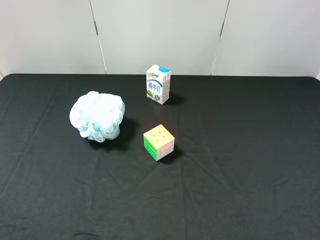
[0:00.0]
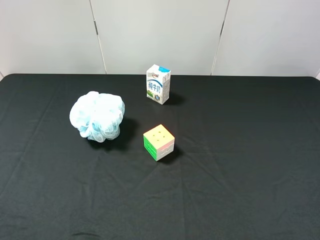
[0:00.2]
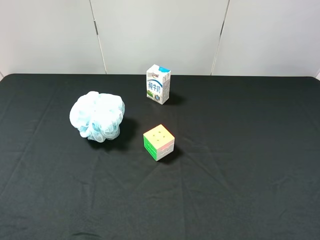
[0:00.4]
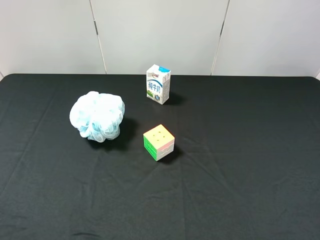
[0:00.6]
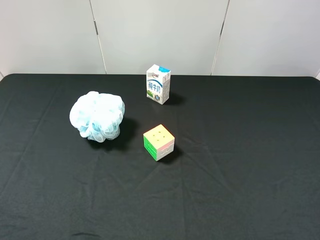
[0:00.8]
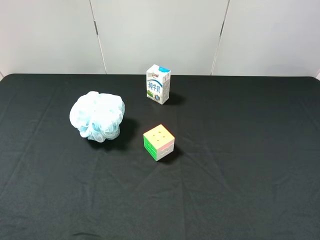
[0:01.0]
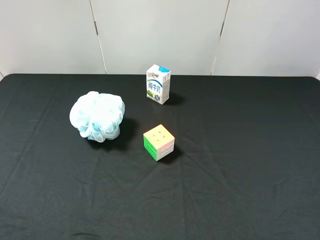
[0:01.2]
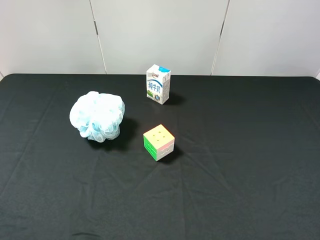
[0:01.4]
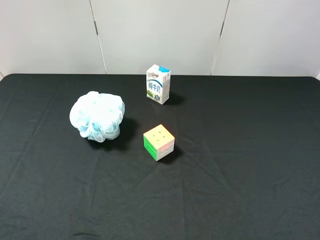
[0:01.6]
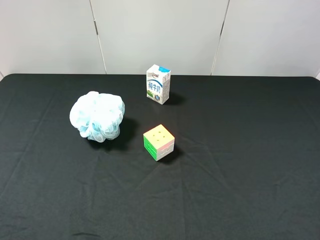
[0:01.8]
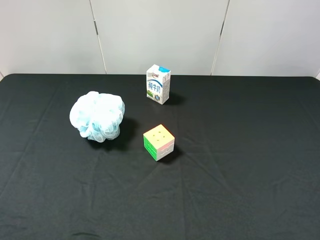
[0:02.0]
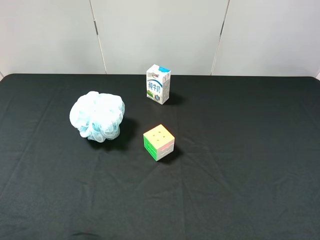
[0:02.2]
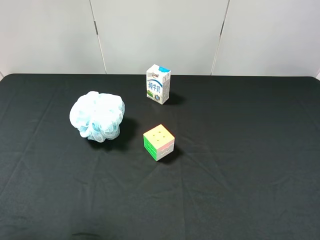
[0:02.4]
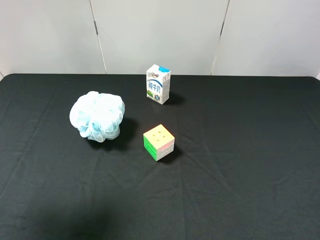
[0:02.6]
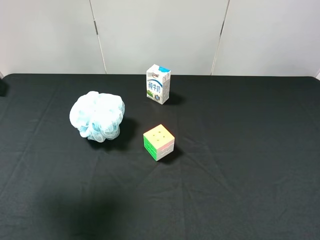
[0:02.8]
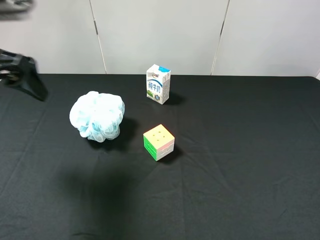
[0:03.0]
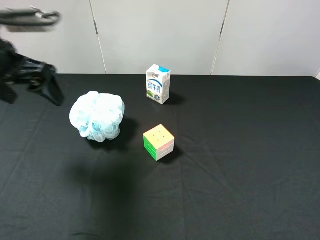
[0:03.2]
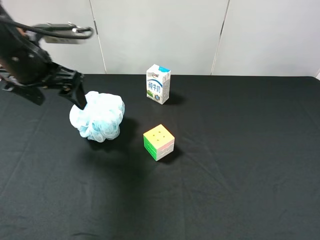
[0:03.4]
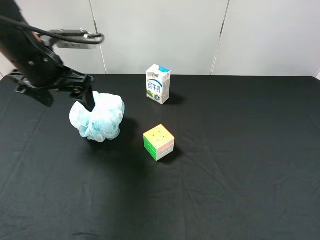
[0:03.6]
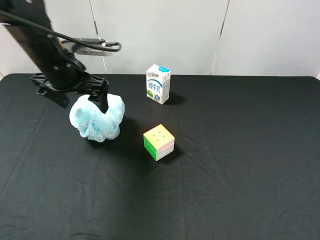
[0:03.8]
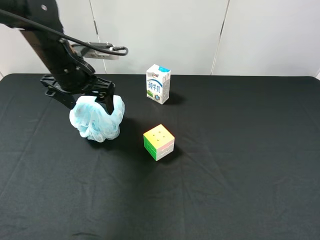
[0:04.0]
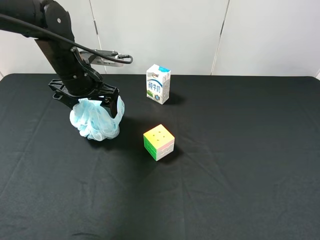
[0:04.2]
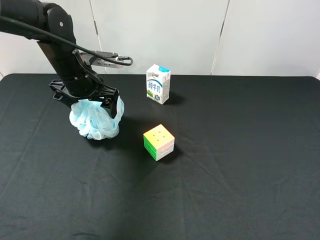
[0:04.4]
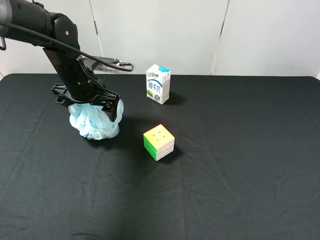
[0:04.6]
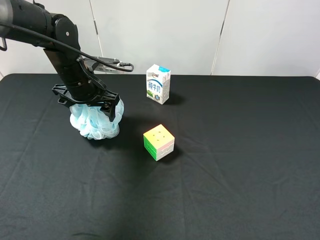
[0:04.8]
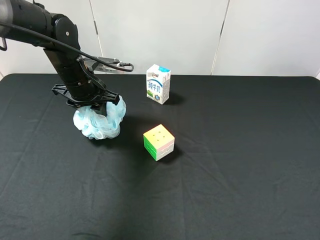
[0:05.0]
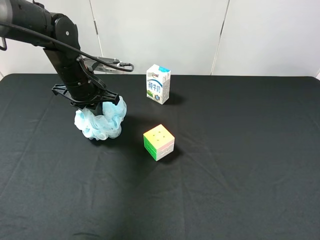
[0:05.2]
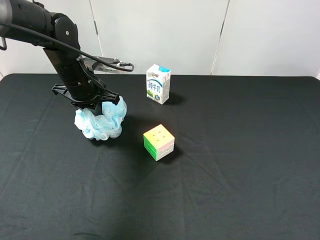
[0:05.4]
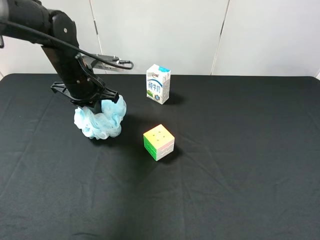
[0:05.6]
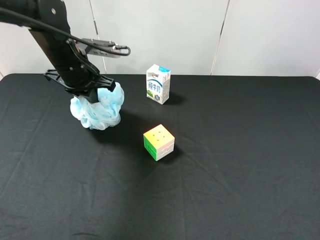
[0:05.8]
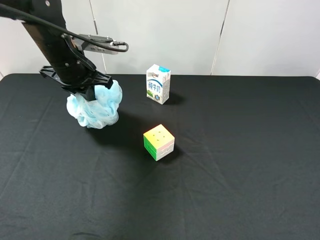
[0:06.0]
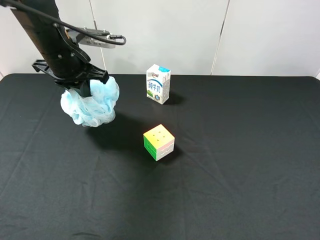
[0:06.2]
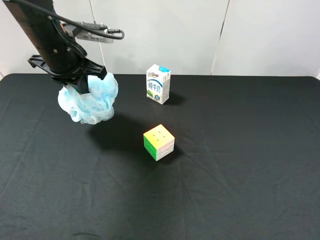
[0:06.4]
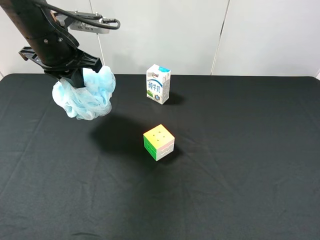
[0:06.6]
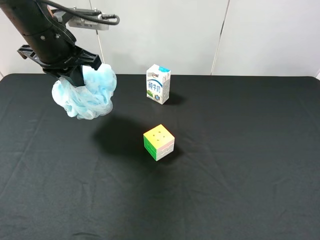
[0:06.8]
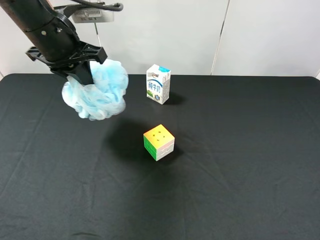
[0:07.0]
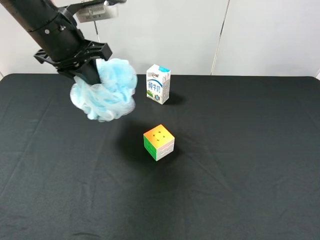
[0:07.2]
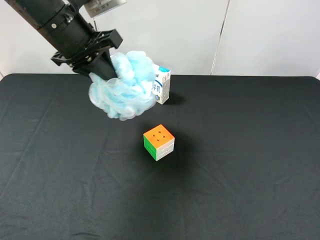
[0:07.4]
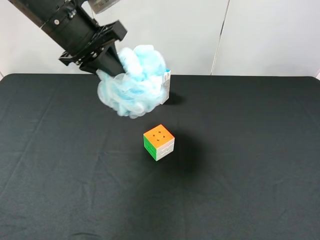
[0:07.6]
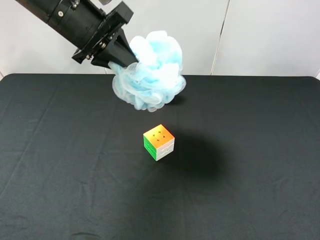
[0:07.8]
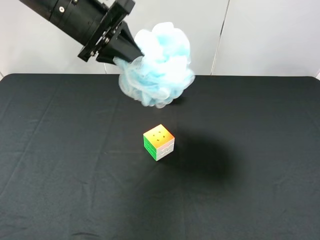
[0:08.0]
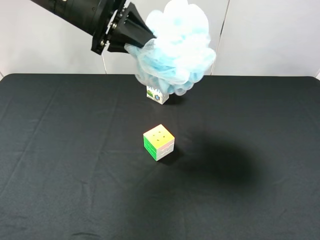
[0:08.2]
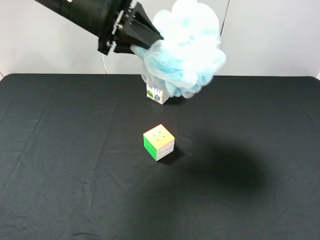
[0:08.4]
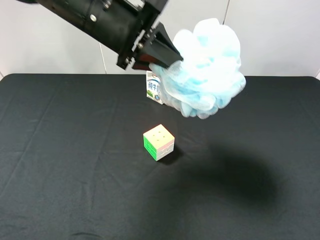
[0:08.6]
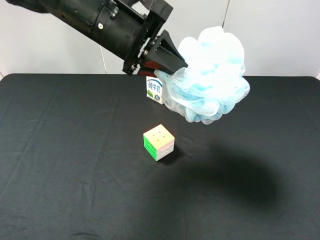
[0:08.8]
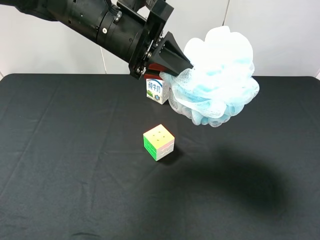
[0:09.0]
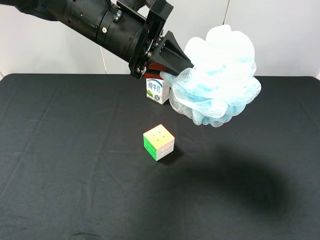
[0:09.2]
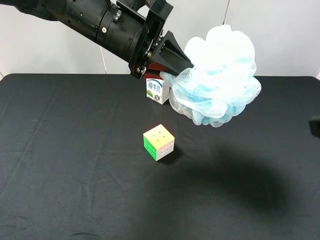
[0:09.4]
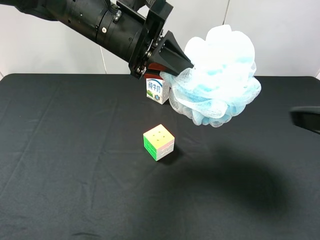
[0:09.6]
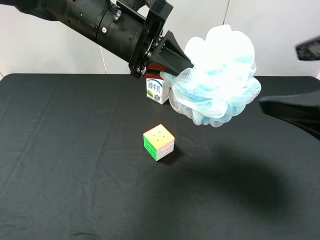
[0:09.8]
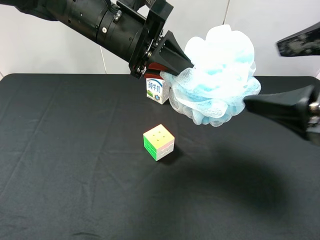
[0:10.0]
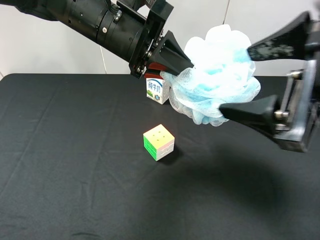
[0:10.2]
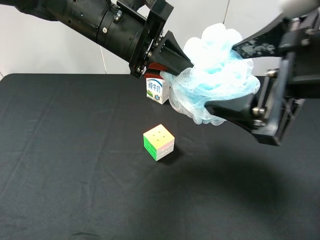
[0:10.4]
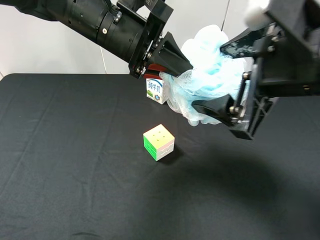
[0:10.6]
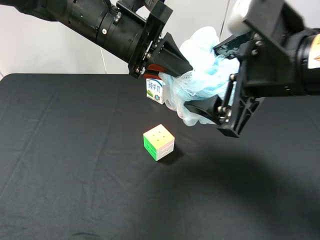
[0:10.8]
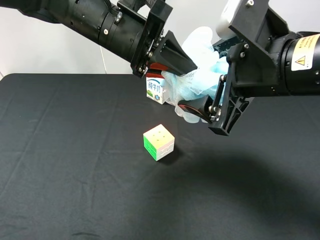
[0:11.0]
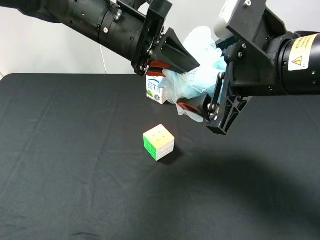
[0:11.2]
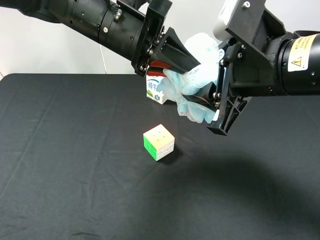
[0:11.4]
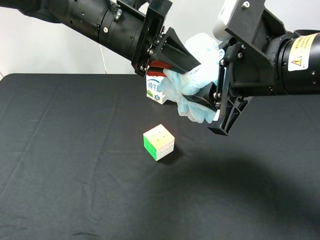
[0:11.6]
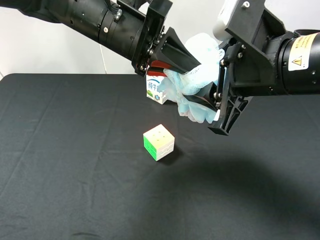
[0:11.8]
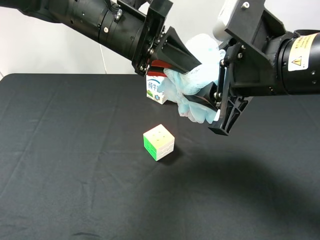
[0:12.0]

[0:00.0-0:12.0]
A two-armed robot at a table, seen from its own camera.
Task of the whole recording: use the left gripper to pick up the item and transfer it from the left gripper to the right gripper.
0:00.0 to 0:01.6: Both grippers stay put.
0:01.6 to 0:03.0: The left gripper heads forward, covering roughly 25 cm.
0:03.0 to 0:04.4: The left gripper shifts approximately 20 cm downward, forward and to the right.
0:04.4 to 0:06.0: The left gripper closes its fingers.
0:06.0 to 0:07.6: The left gripper shifts approximately 5 cm upward.
0:07.6 to 0:09.0: The right gripper shifts by some 5 cm, while the left gripper goes roughly 10 cm to the right.
0:09.0 to 0:10.4: The right gripper travels to the left and forward by approximately 15 cm.
0:10.4 to 0:12.0: The right gripper shifts by approximately 5 cm, and closes its fingers.

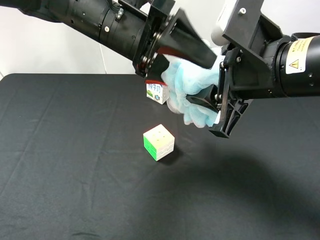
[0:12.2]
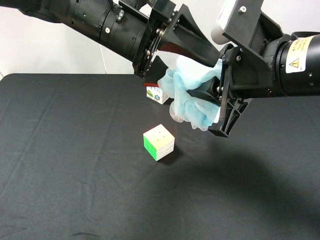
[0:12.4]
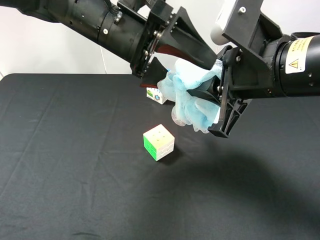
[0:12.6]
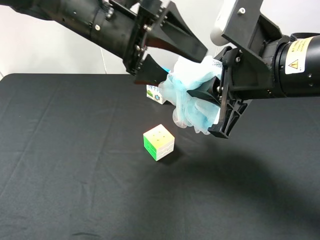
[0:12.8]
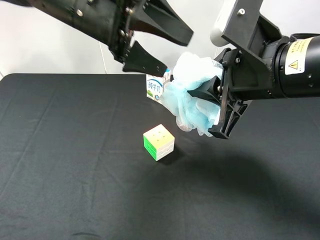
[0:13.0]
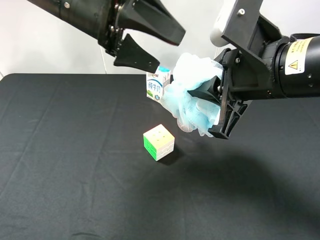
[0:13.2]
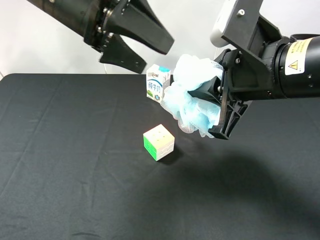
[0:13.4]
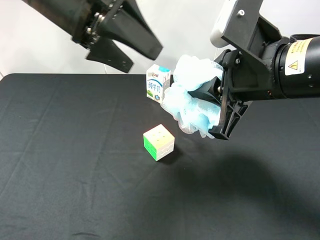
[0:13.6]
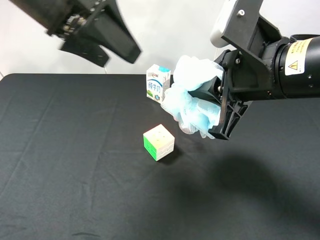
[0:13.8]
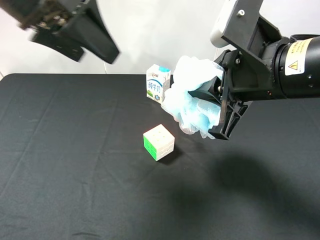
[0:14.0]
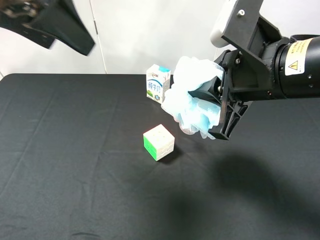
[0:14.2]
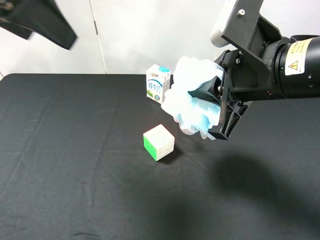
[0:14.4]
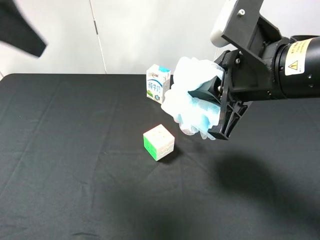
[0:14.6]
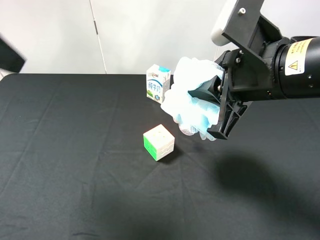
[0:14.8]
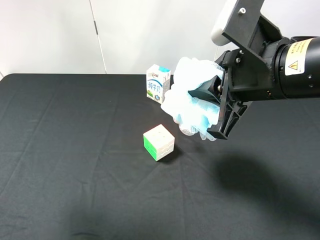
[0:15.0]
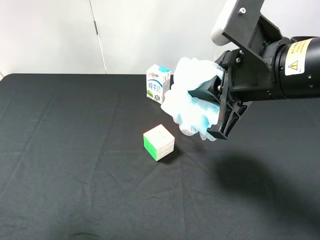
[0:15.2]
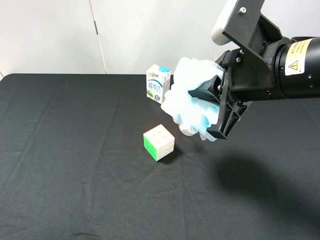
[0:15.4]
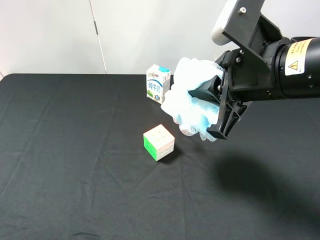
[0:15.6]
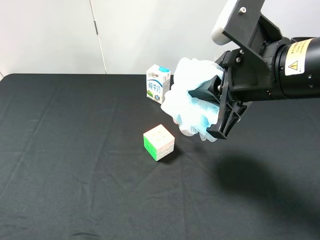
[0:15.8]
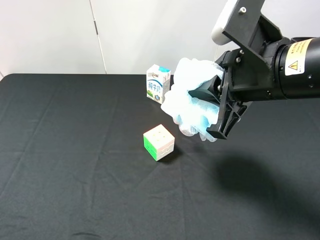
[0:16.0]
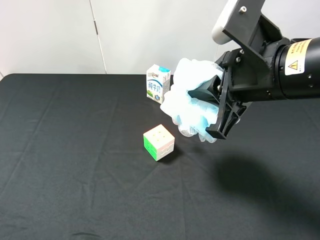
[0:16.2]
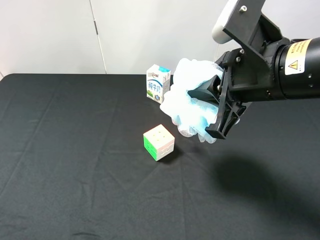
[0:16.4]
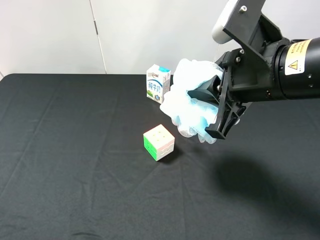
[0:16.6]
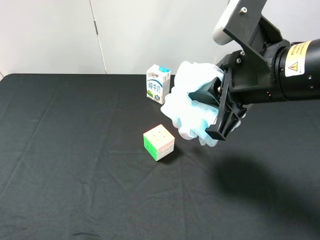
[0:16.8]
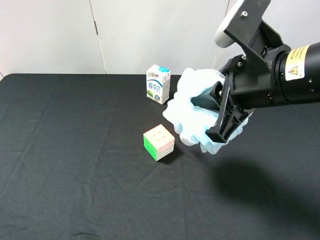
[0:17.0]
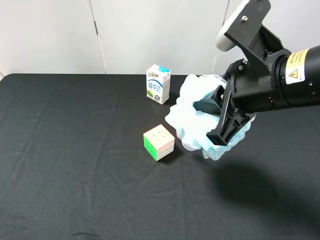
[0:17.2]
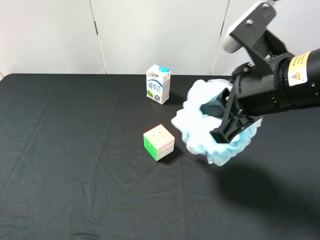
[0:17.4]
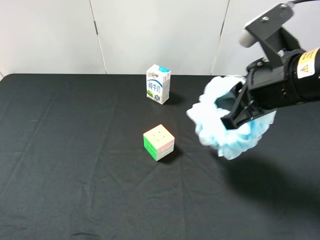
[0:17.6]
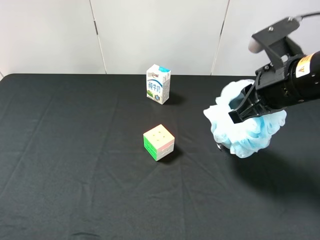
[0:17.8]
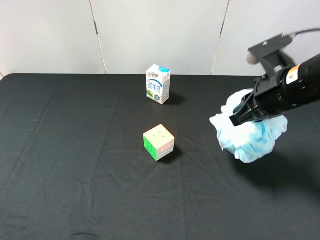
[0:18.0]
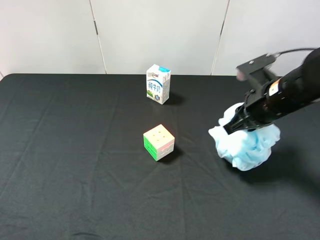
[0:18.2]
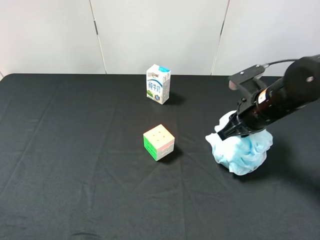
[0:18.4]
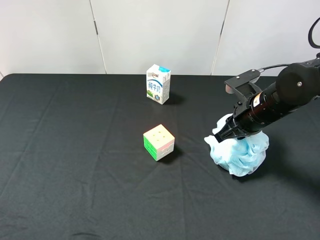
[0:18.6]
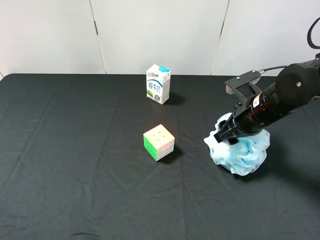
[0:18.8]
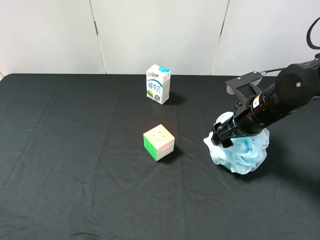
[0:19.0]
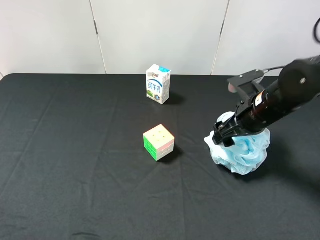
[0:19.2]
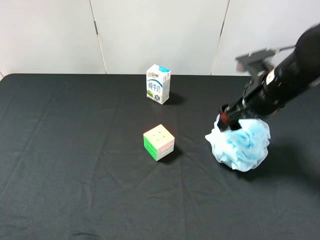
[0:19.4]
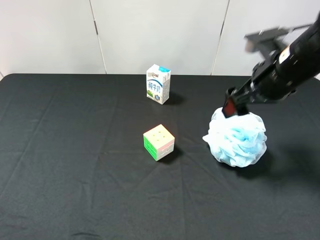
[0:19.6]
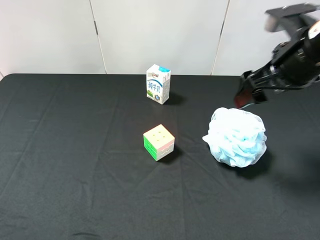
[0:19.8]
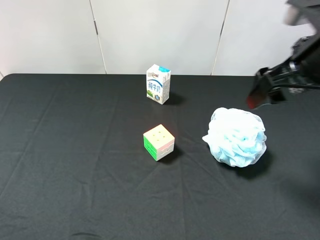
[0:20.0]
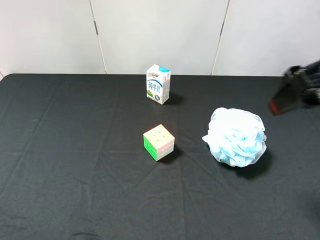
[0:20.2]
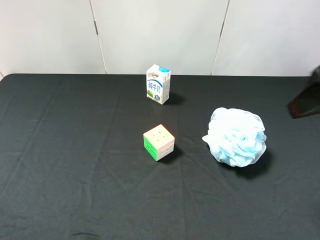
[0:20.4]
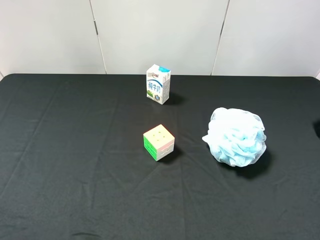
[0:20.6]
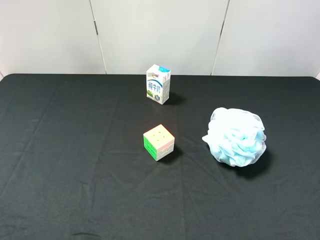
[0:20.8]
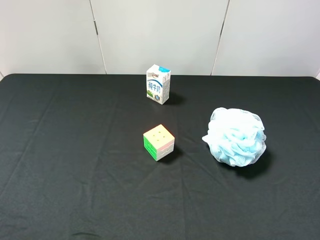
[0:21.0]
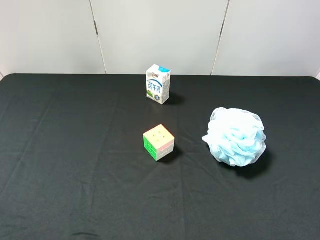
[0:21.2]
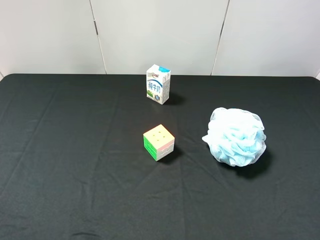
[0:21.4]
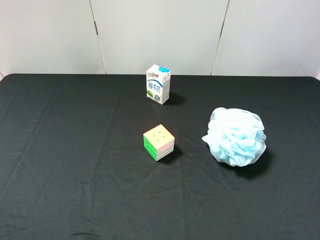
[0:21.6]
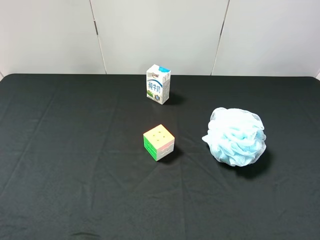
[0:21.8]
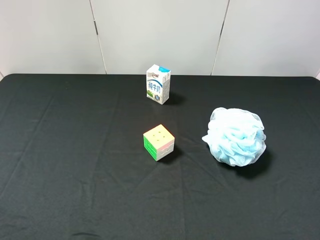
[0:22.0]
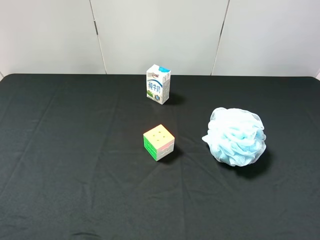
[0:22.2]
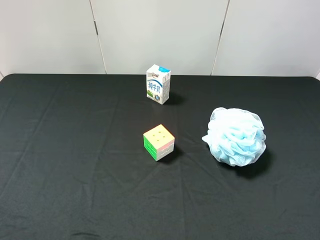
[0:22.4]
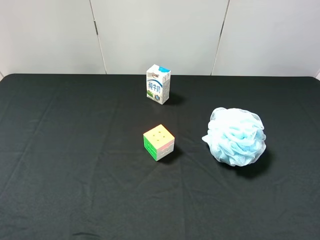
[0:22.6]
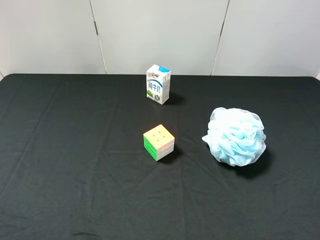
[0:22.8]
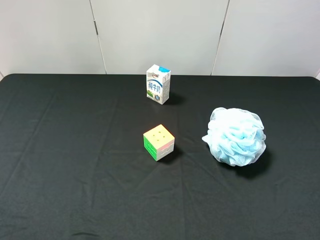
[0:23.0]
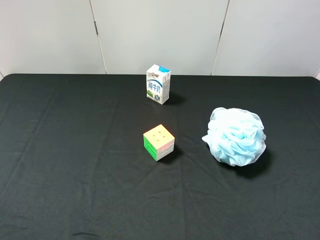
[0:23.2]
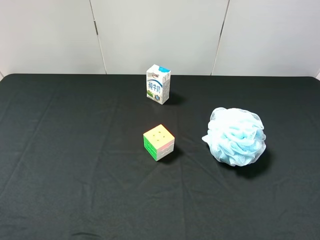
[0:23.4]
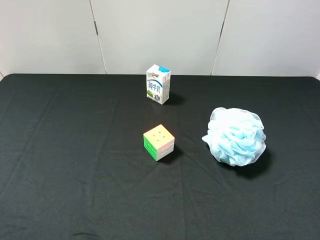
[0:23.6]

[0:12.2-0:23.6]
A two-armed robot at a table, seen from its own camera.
Task of the whole recording: use the left gripper to pick up the item and transfer it from the left gripper to the right gripper.
0:12.2 to 0:13.6: The left gripper is displaced to the left and upward by roughly 10 cm.
0:13.6 to 0:15.0: The left gripper heads backward and to the left, covering some 20 cm.
0:15.0 to 0:16.4: The left gripper moves backward and downward, some 15 cm.
0:16.4 to 0:17.8: The right gripper goes approximately 5 cm to the right.
0:17.8 to 0:19.4: The right gripper opens up.
0:19.4 to 0:20.8: The right gripper moves backward and upward, some 25 cm.
